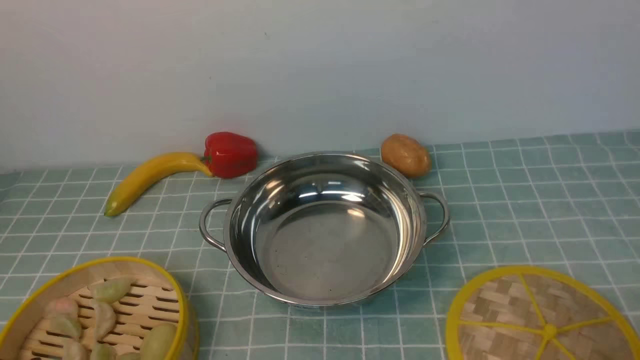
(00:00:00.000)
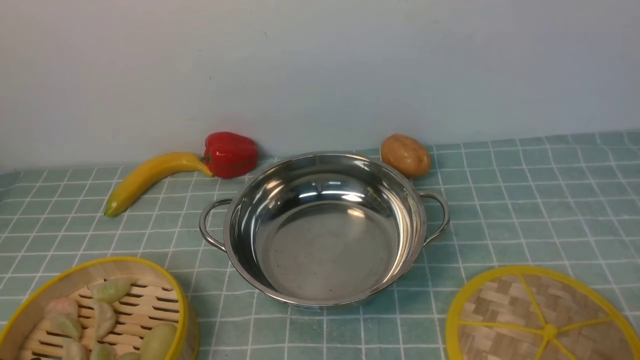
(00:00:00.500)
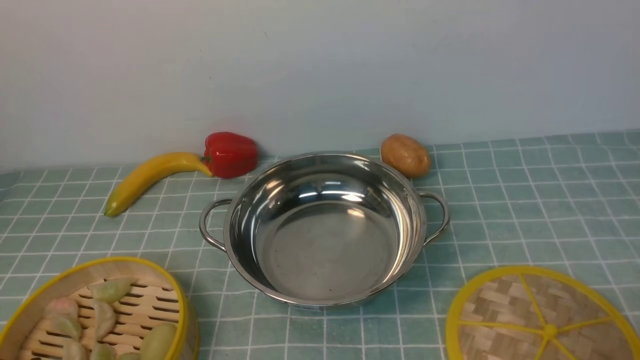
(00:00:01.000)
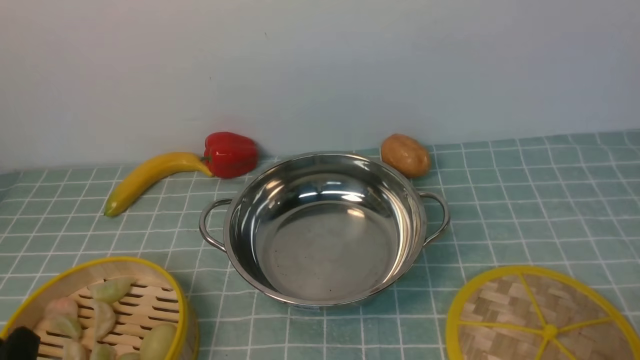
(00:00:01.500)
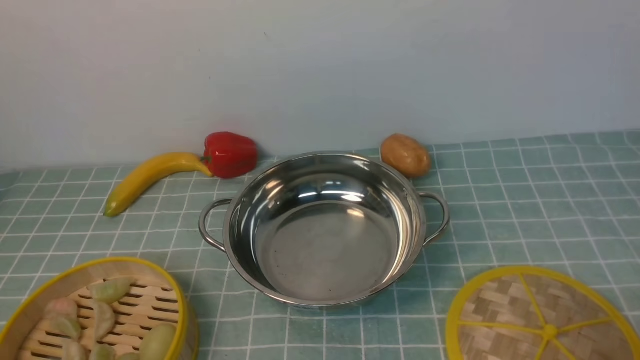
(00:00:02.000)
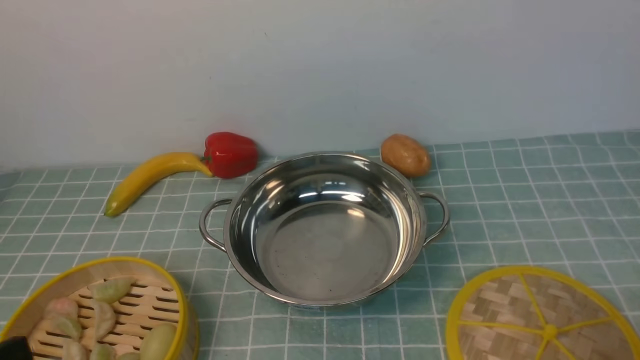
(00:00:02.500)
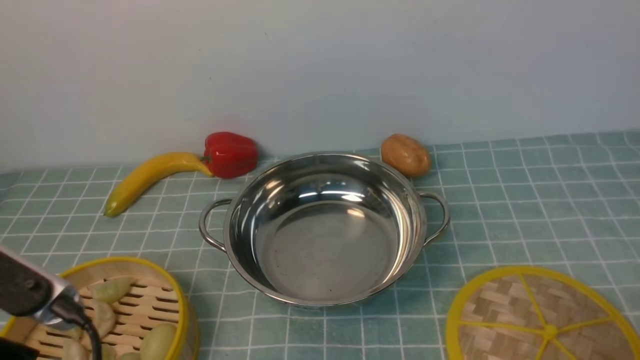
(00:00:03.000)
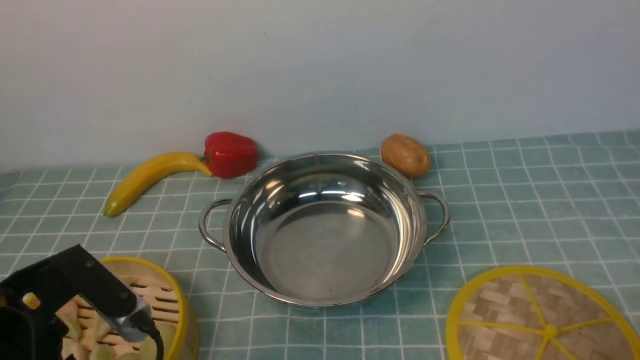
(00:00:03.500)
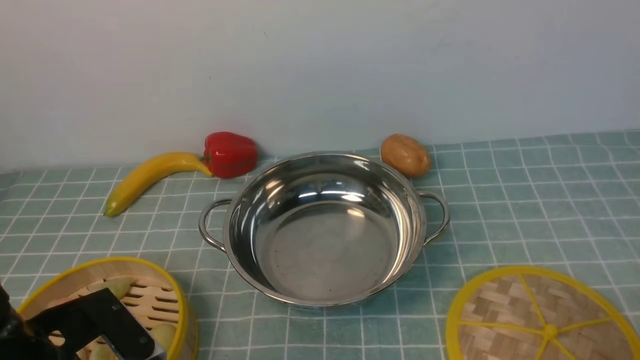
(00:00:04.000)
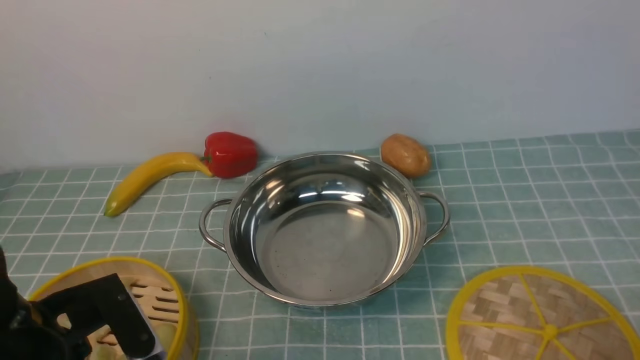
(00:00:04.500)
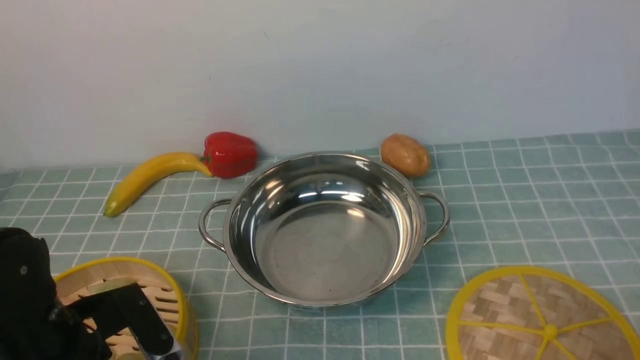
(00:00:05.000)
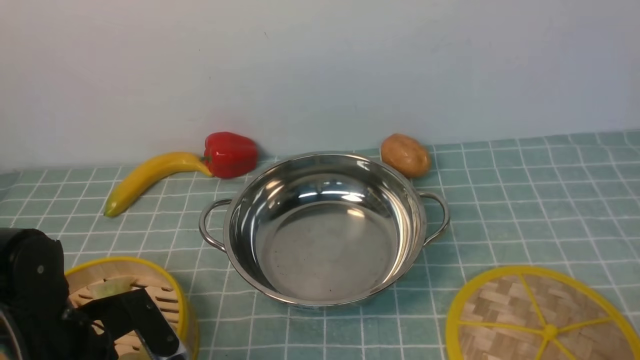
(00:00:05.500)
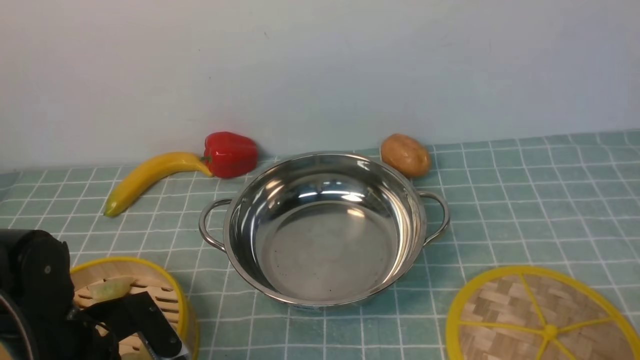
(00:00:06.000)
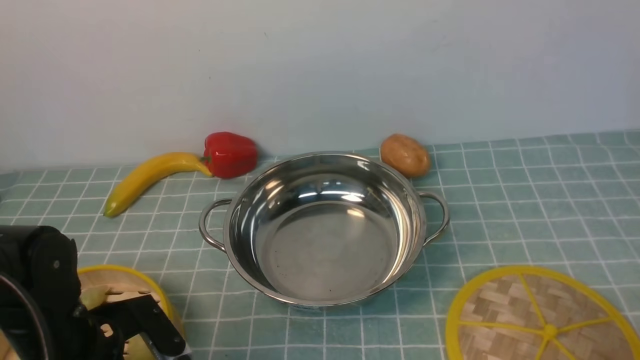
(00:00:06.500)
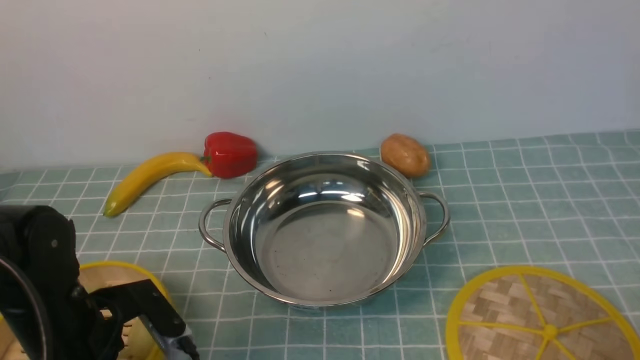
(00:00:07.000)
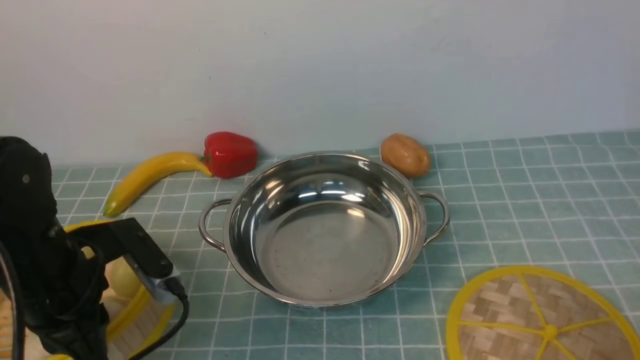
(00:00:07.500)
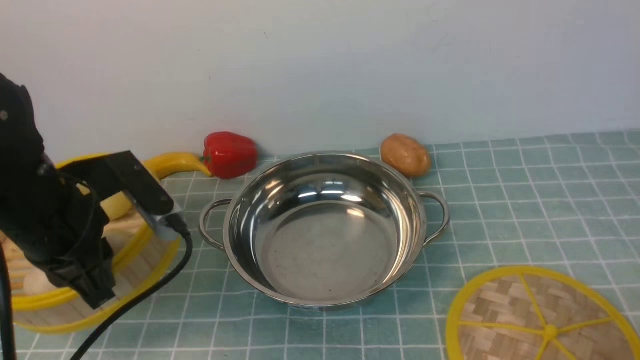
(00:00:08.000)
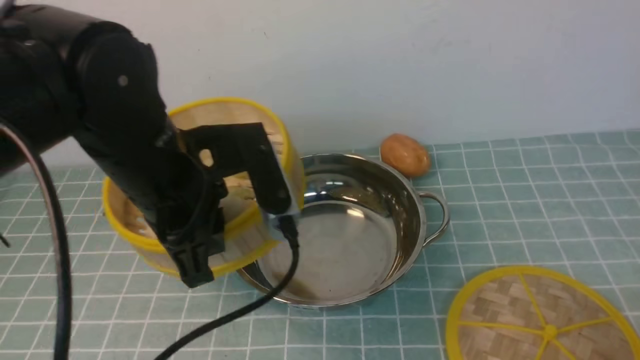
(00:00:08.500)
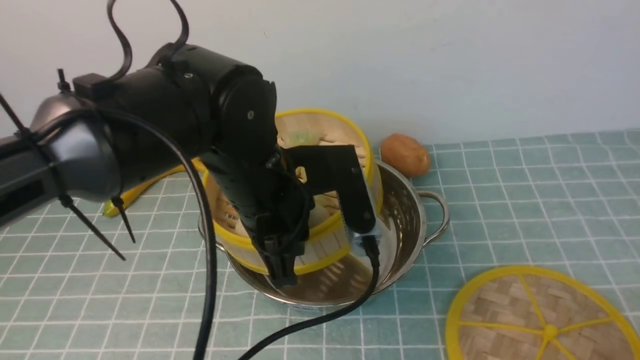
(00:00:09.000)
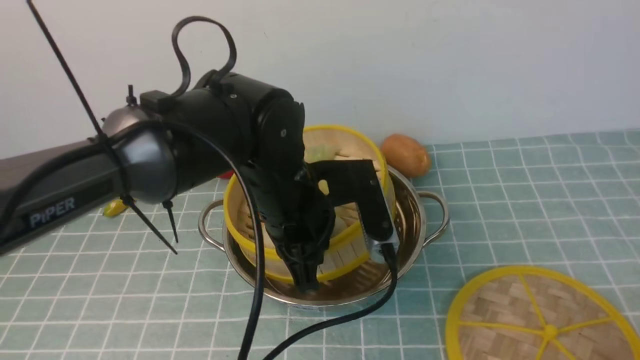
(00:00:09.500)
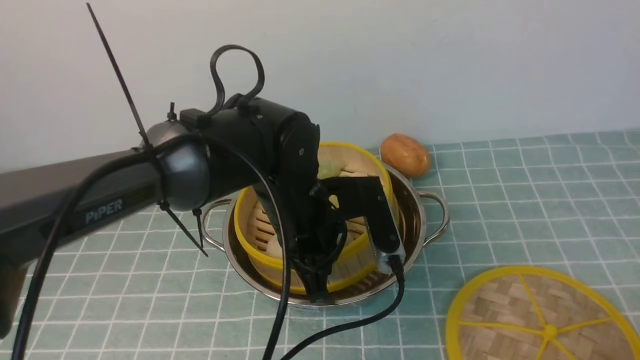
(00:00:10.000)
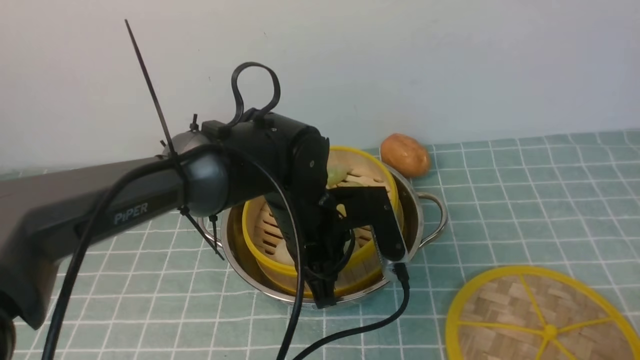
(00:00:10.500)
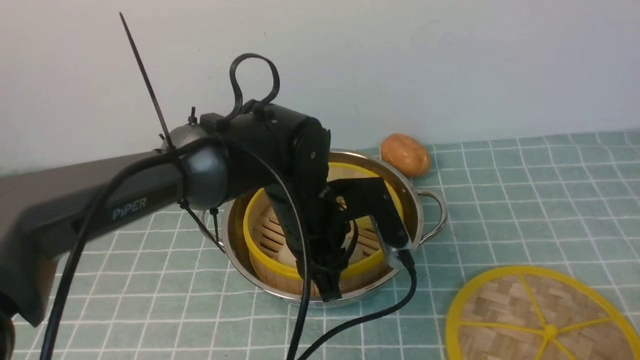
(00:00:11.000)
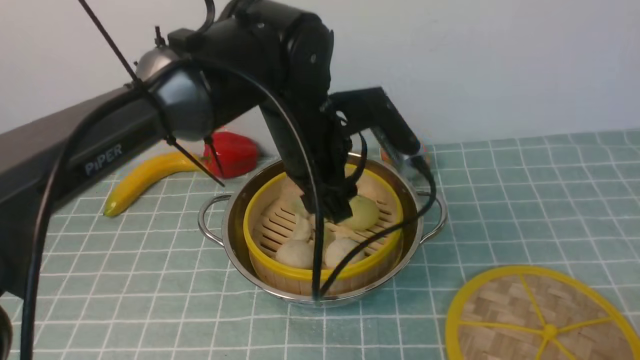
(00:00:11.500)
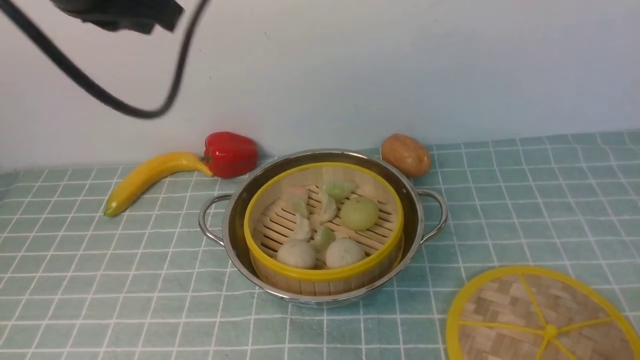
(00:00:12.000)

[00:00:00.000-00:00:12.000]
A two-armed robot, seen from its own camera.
Task of the whole recording: place the steamer in the pot on the blue tablecloth, and put the lid on the steamer.
Step, 00:00:00.000 to 00:00:07.500: use the left arm to lift the steamer closest to it.
Step, 00:00:08.000 to 00:00:11.000: use the left arm to put the steamer into the iron steamer pot in the middle.
00:00:02.000 to 00:00:04.000: The left gripper travels forward by roughly 10 cm.
00:00:04.000 to 00:00:06.000: The left gripper travels downward by about 5 cm.
00:00:06.000 to 00:00:08.000: The left gripper moves upward and forward, about 10 cm, and closes up.
00:00:08.000 to 00:00:10.000: The left gripper moves to the right, some 20 cm.
00:00:10.000 to 00:00:12.000: The left gripper travels upward and to the left by some 25 cm, and opens and closes again.

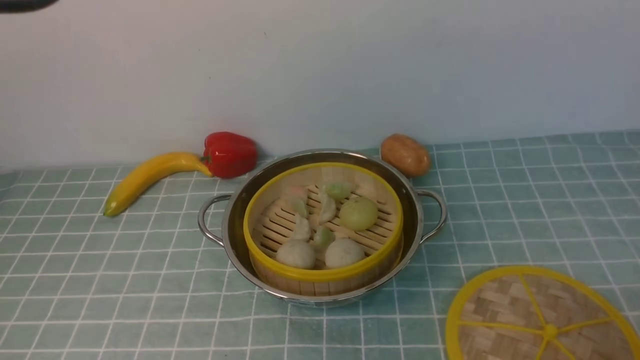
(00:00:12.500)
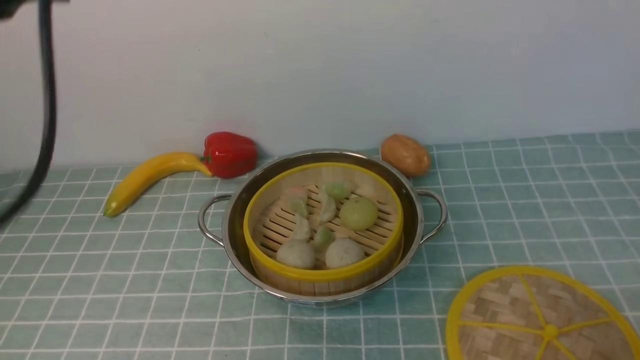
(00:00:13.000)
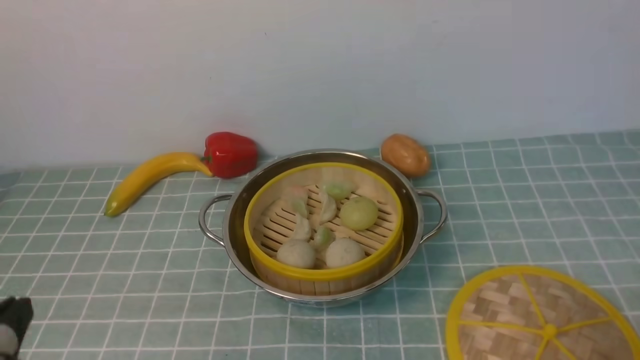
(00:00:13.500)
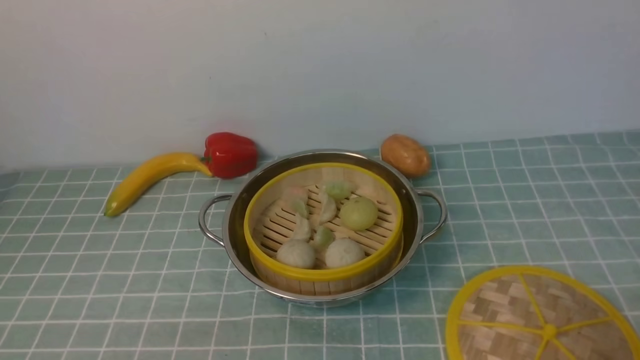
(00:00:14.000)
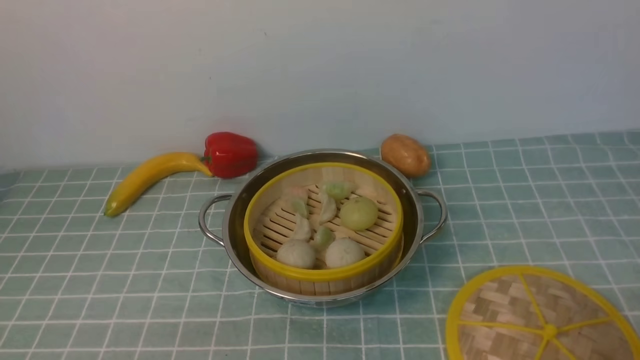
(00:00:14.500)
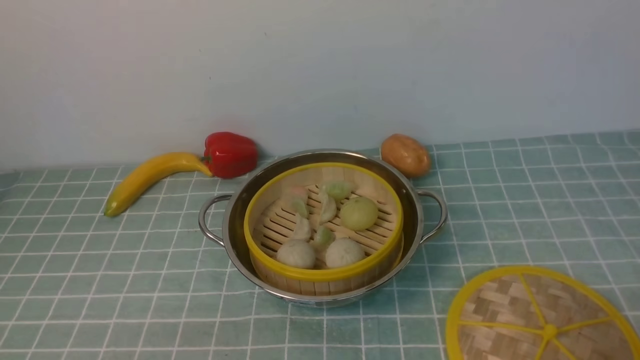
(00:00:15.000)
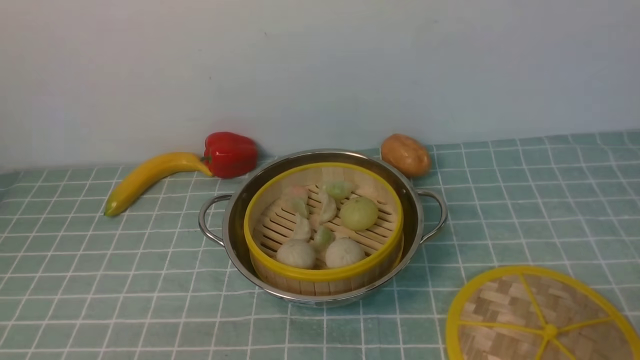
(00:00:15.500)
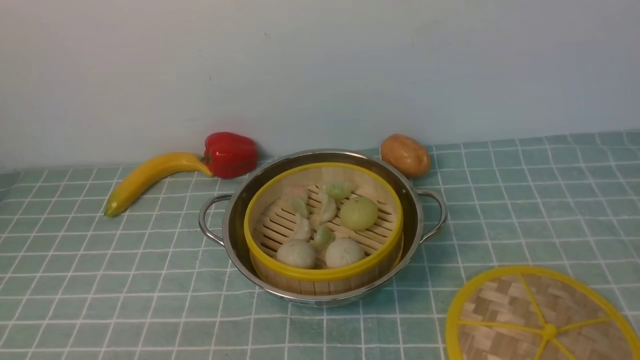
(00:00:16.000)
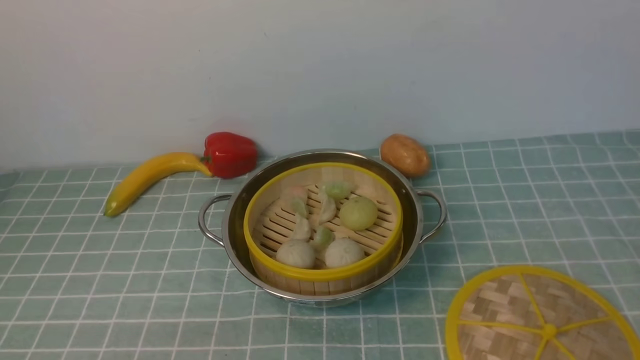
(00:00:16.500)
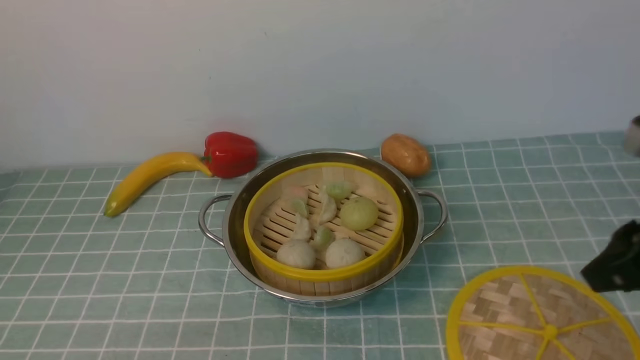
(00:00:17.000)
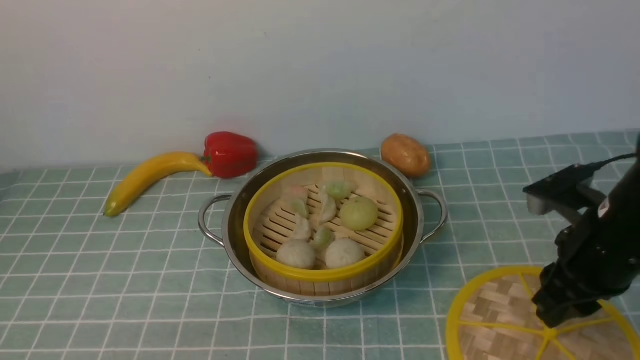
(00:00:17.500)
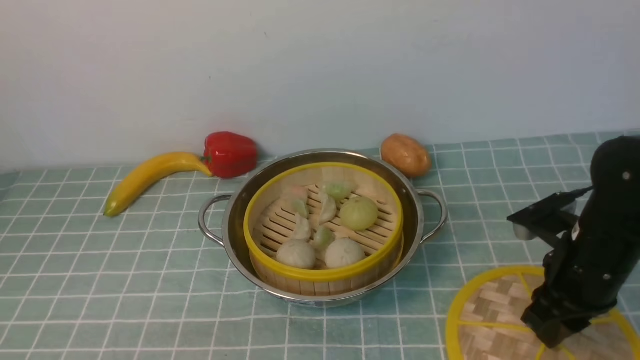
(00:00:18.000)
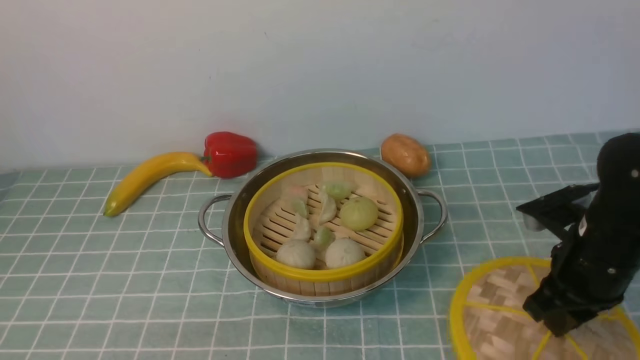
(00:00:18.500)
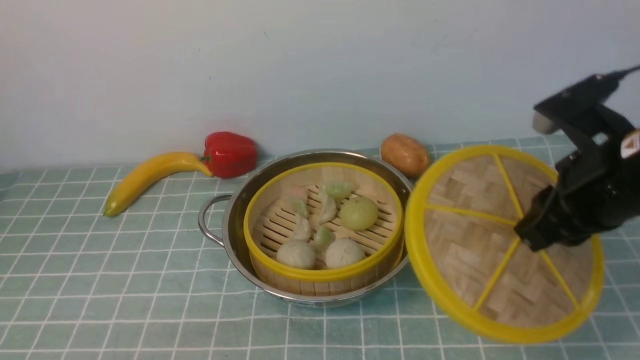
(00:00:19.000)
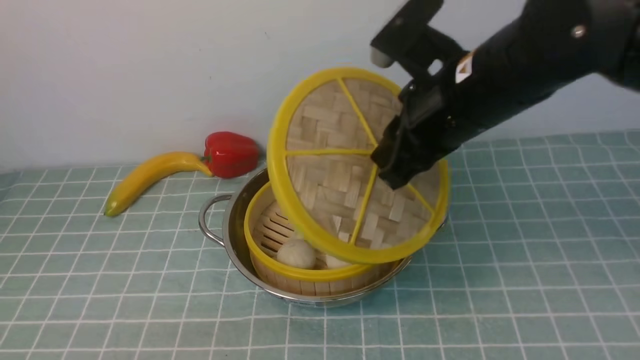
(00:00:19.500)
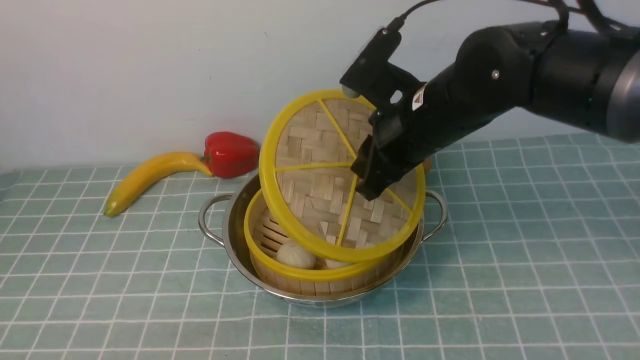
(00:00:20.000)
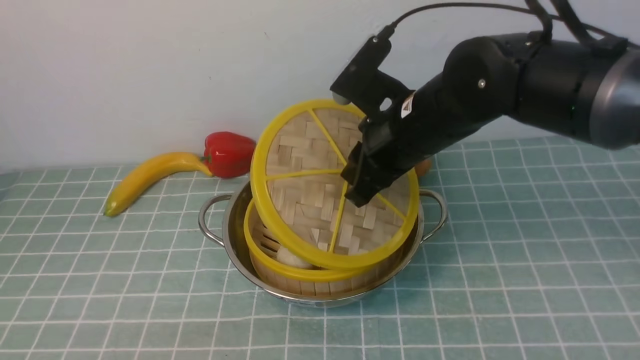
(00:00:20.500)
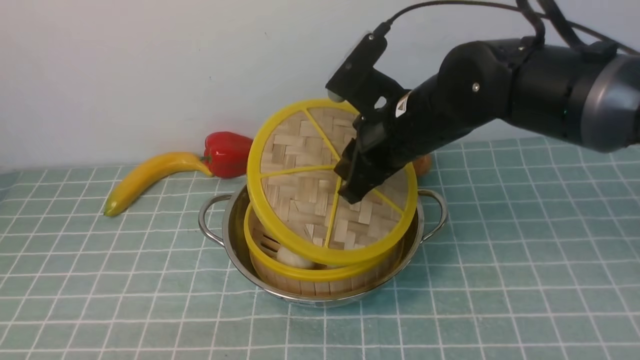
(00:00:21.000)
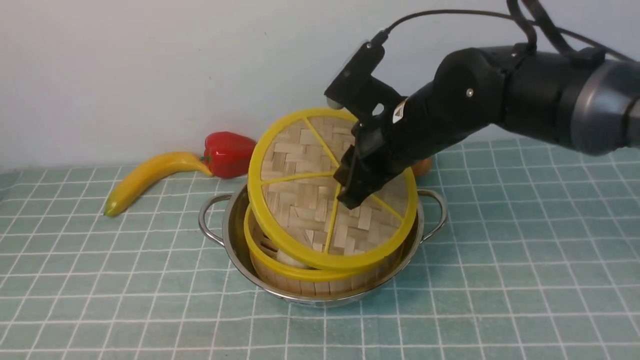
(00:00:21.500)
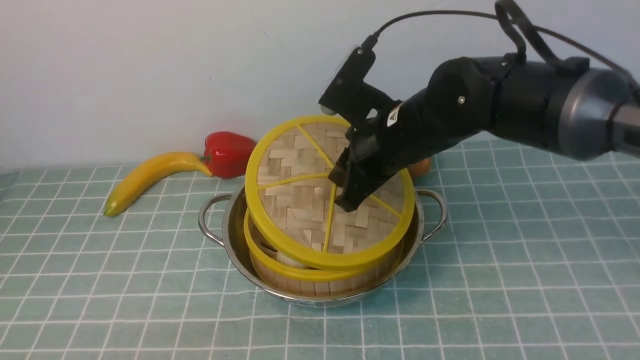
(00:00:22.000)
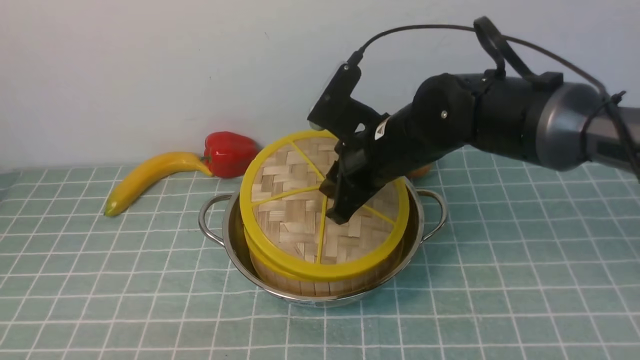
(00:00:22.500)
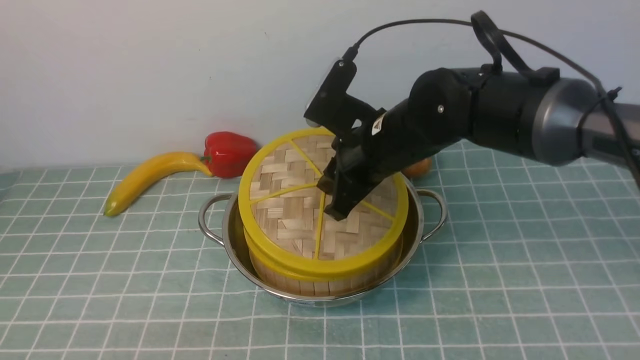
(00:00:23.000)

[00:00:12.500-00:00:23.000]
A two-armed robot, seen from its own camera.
Task of the whole recording: place the steamer in the pot on the blue tablecloth, and put the lid on the steamer.
Step, 00:00:12.500 to 00:00:19.000: use the right arm to lift the lid of the steamer.
00:00:16.500 to 00:00:19.000: The left gripper opens its fingers. Meanwhile the right gripper travels forward by roughly 30 cm.
00:00:19.000 to 00:00:21.000: The right gripper travels to the left and forward by about 20 cm.
00:00:21.000 to 00:00:23.000: The grippers stay close to where they were, moving slightly.
